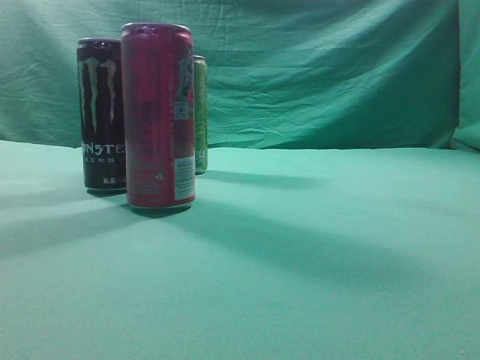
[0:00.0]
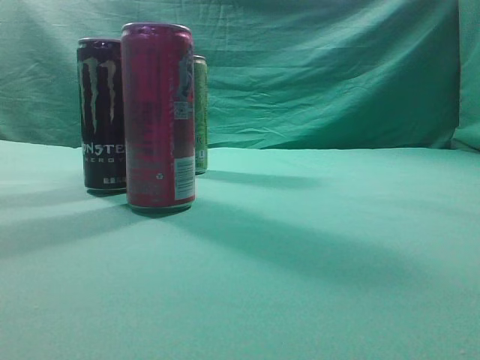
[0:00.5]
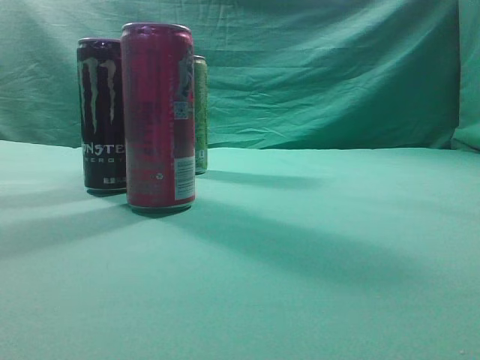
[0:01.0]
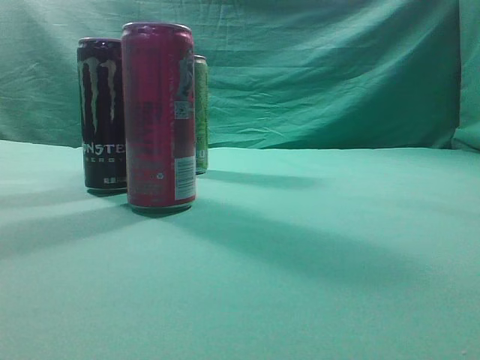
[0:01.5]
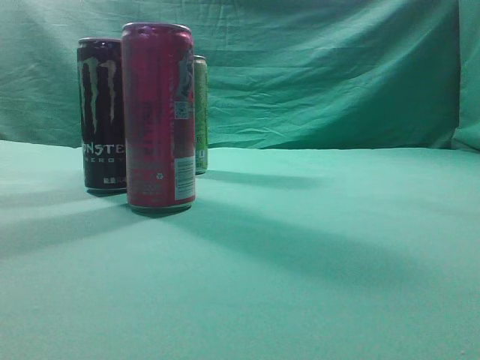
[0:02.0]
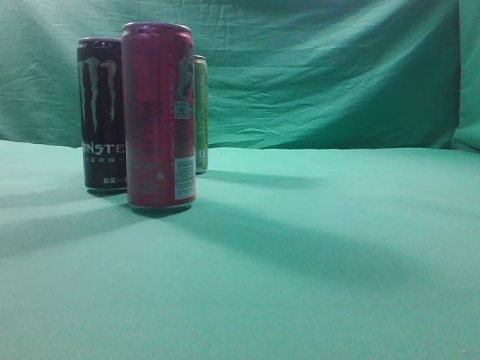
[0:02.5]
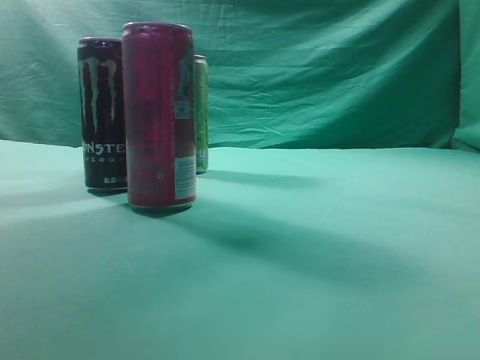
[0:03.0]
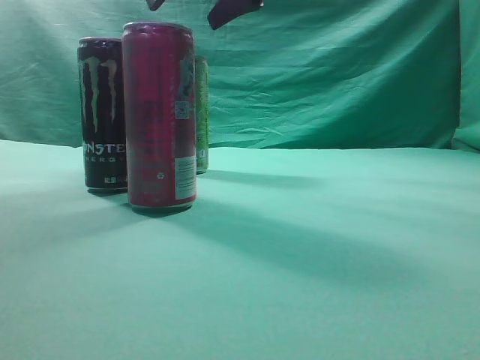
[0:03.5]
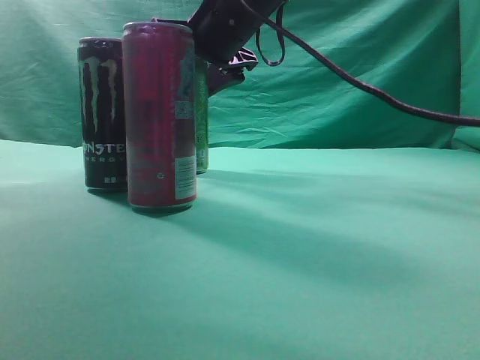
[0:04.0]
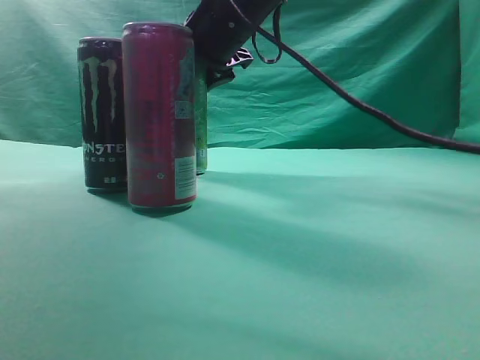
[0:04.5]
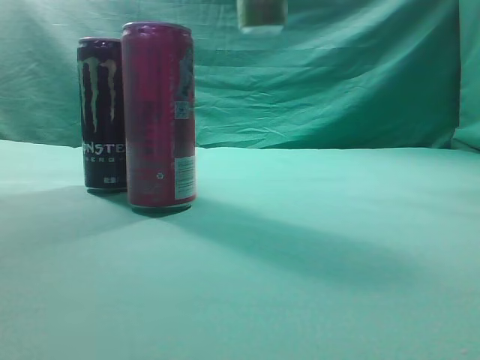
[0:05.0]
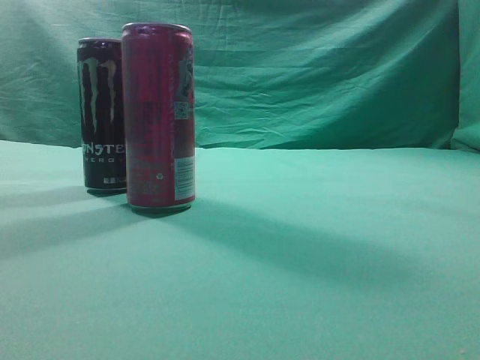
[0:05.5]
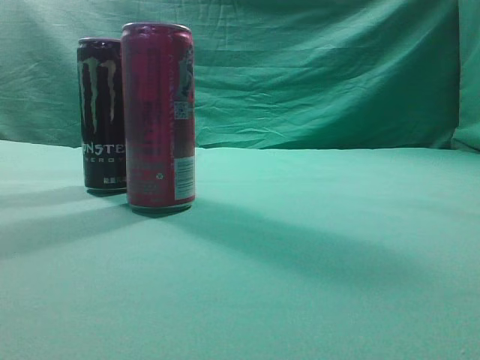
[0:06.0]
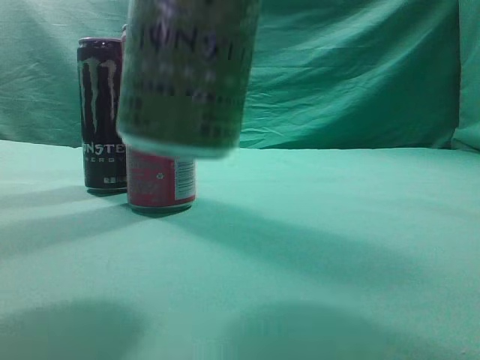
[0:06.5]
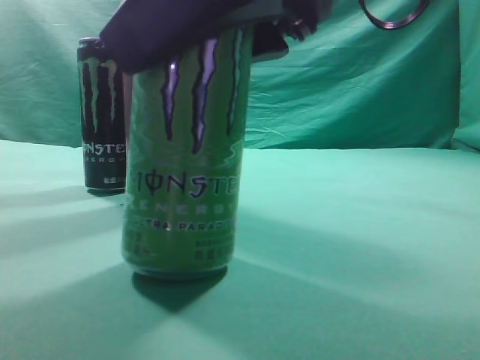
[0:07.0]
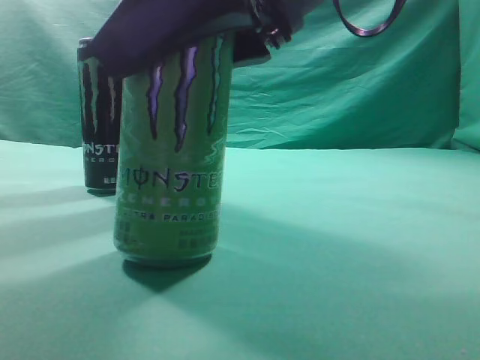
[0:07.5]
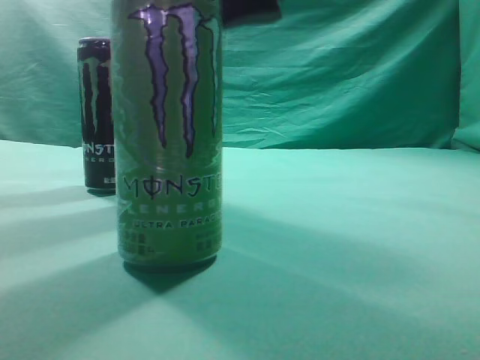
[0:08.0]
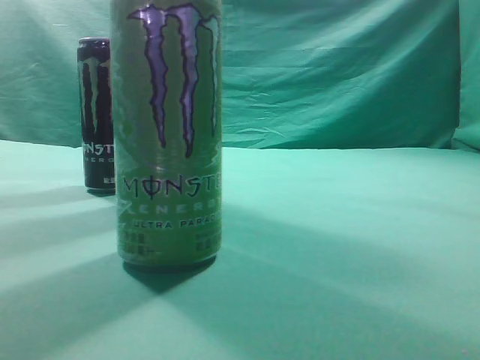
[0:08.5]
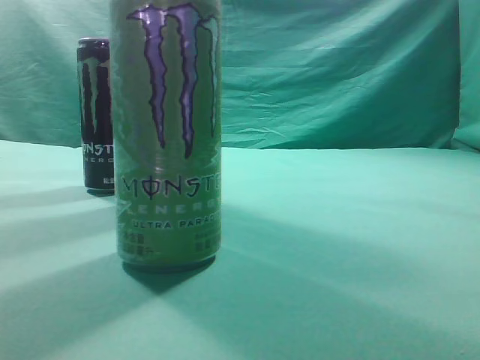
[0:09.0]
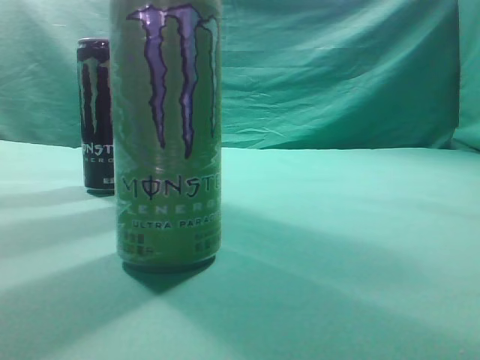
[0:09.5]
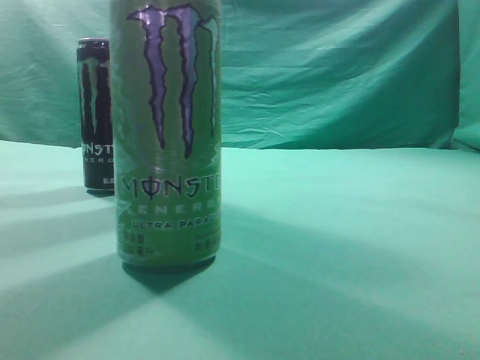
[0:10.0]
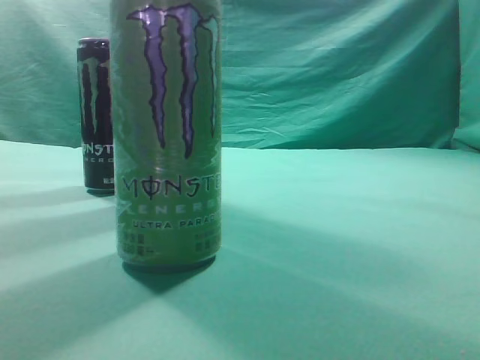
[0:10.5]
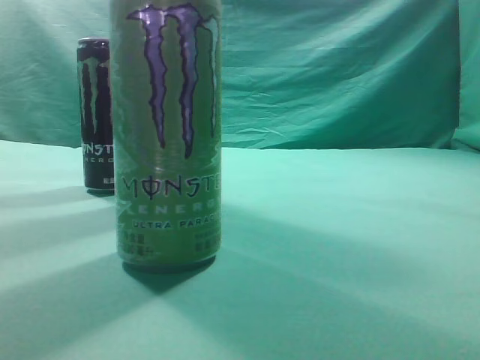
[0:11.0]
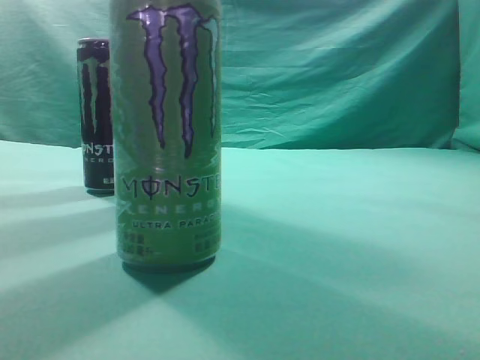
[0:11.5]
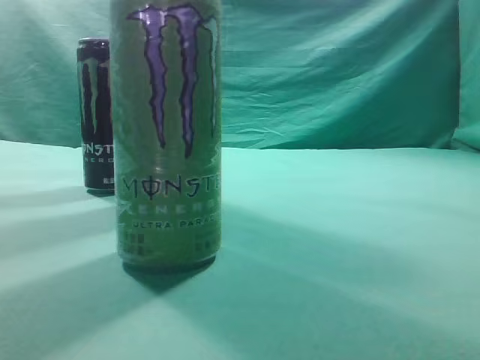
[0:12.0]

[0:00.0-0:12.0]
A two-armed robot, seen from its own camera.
Task of the whole recording: move one drink among three beverages.
Step, 0:00.0 to 0:04.5: Grasp the beverage bottle placed at the back of the desk.
Step, 0:05.0 to 0:07.5: Place the beverage bottle to the front of the table.
0:02.0 to 0:04.0: The right gripper travels forward and to the left by approximately 50 cm, and opens up.
0:04.0 to 0:06.0: The right gripper is displaced backward, to the right and upward by roughly 35 cm.
0:06.0 to 0:08.0: The right gripper is displaced downward, to the left and forward by about 15 cm.
0:08.0 to 0:10.0: The right gripper is displaced to the right and backward by about 30 cm, and closes its fingers.
